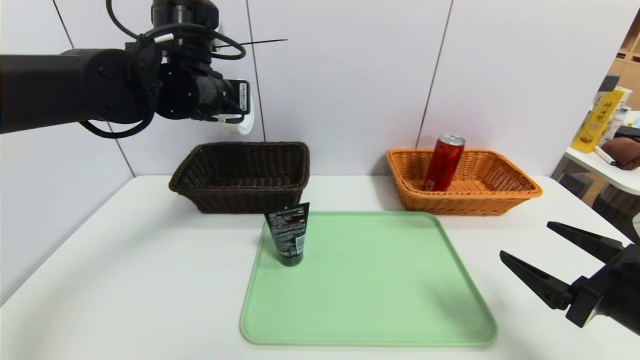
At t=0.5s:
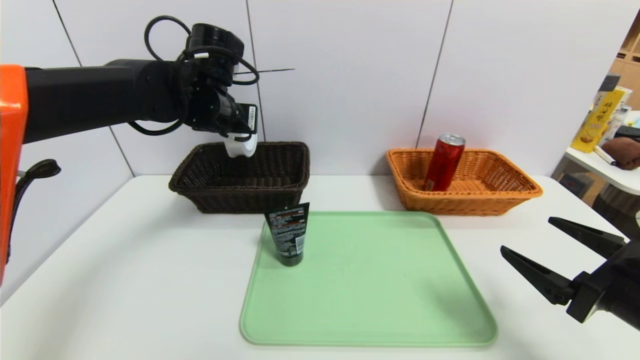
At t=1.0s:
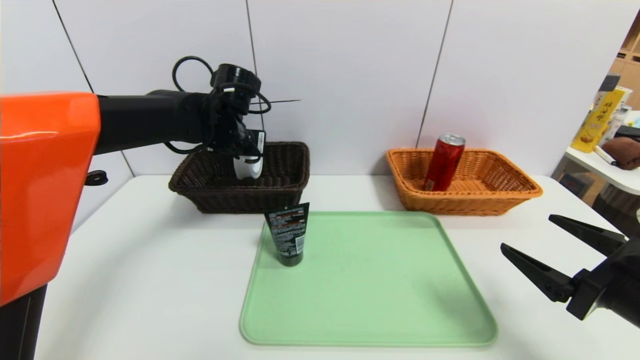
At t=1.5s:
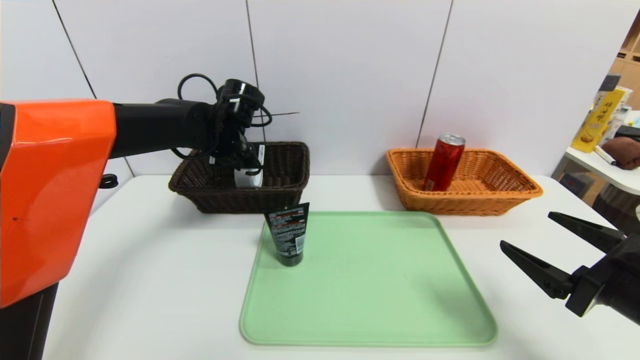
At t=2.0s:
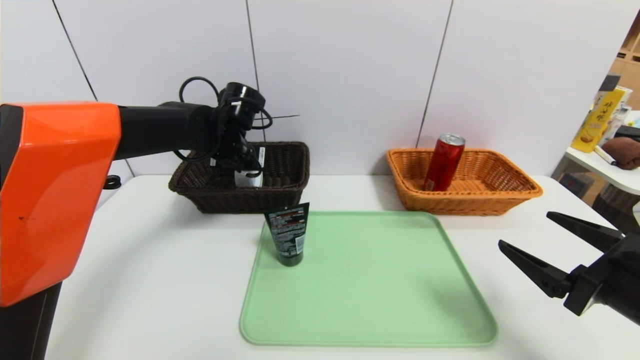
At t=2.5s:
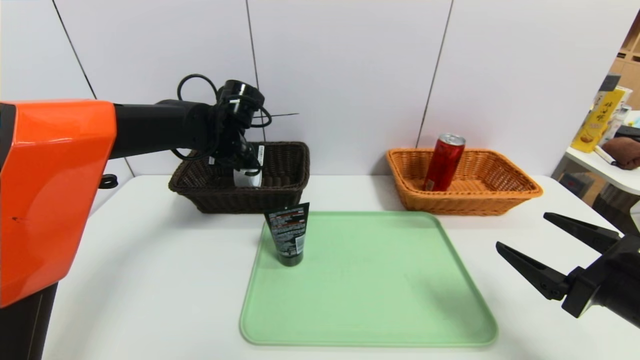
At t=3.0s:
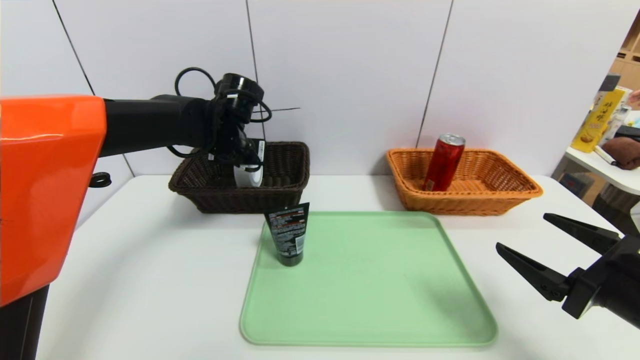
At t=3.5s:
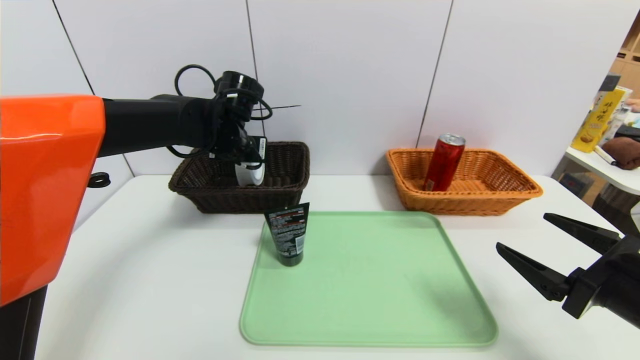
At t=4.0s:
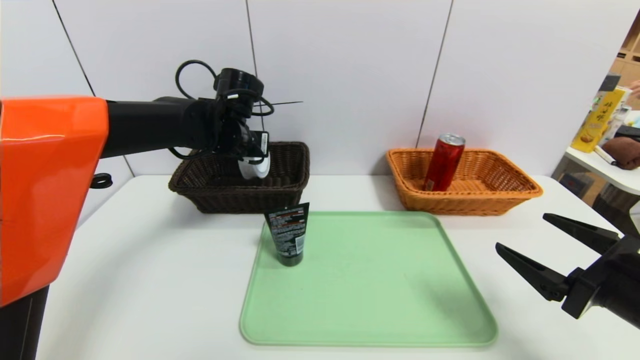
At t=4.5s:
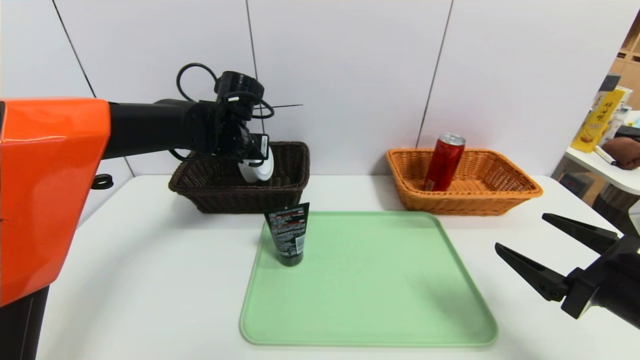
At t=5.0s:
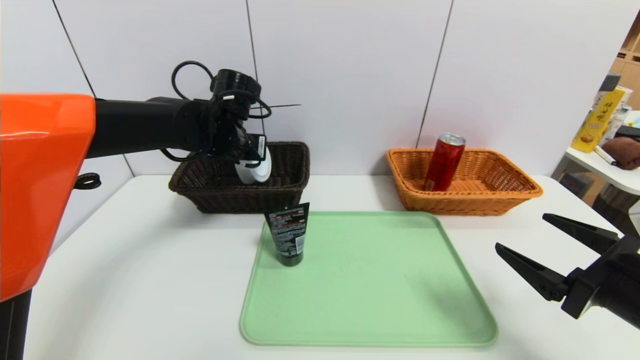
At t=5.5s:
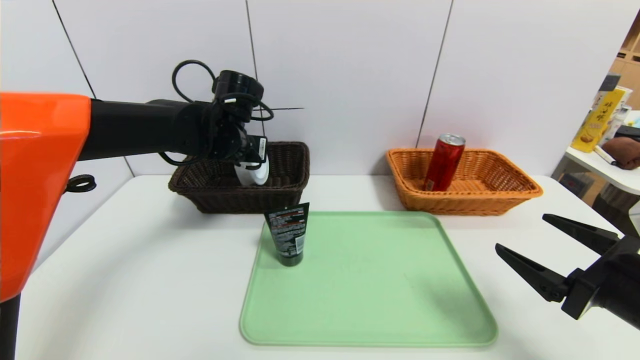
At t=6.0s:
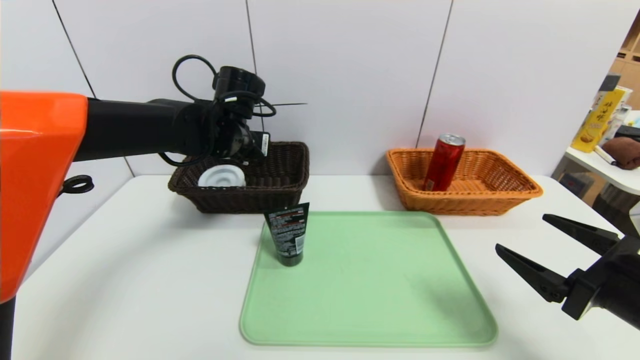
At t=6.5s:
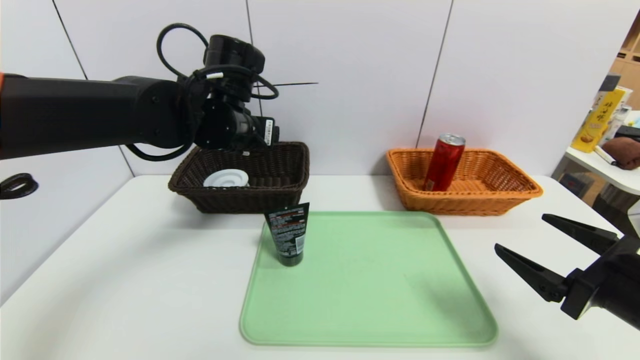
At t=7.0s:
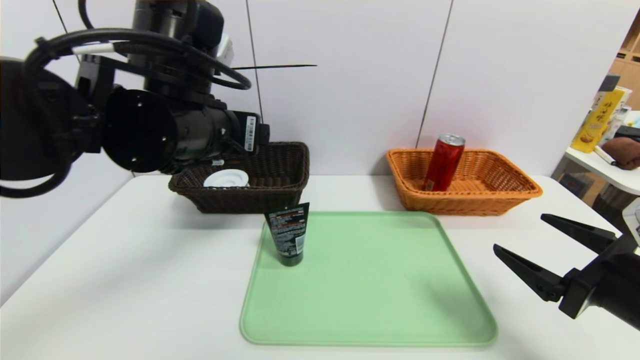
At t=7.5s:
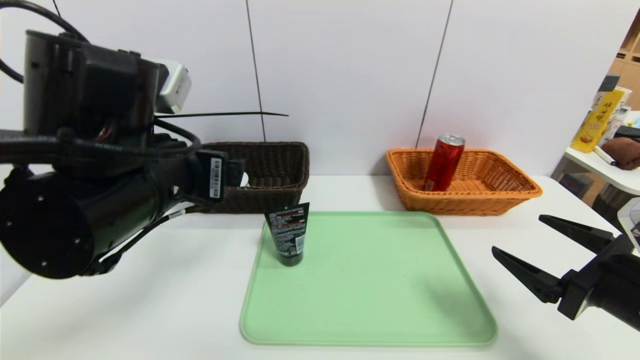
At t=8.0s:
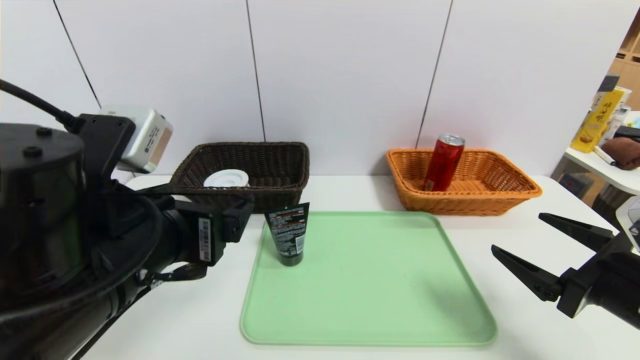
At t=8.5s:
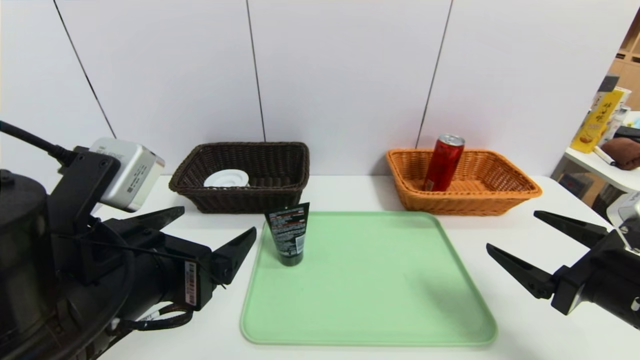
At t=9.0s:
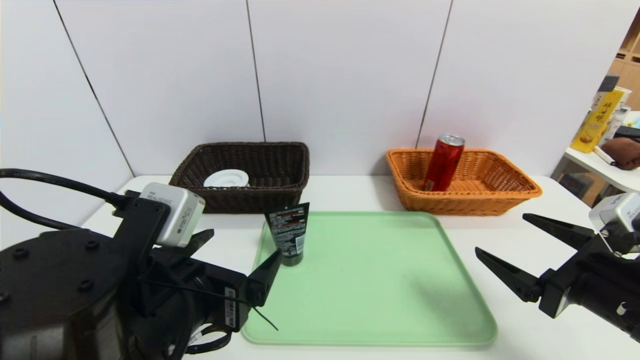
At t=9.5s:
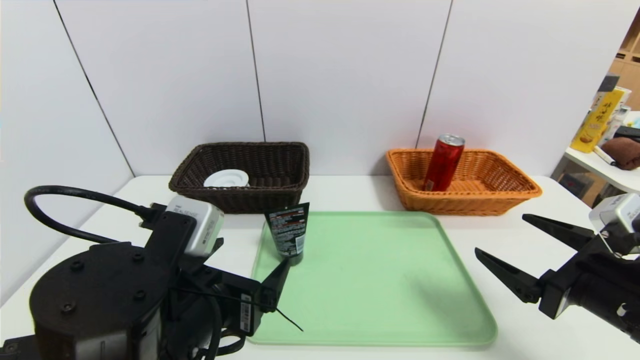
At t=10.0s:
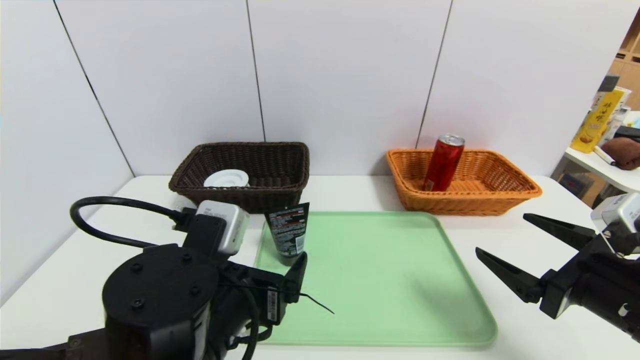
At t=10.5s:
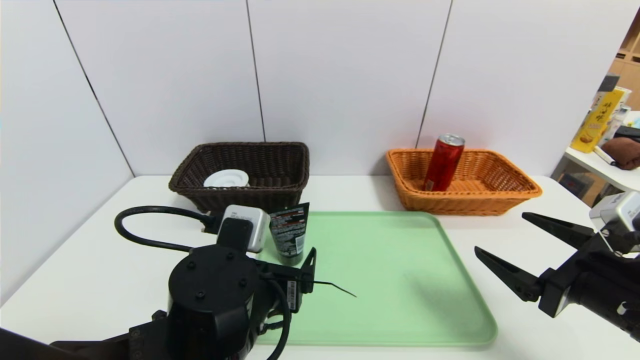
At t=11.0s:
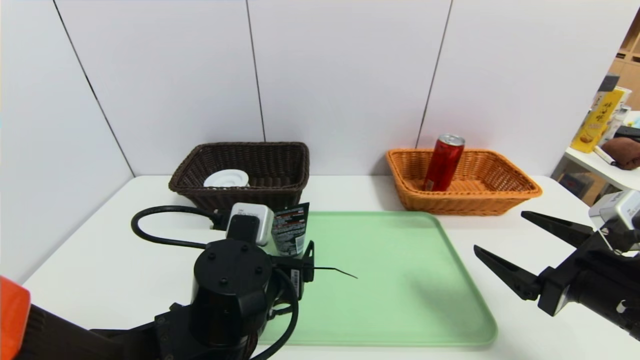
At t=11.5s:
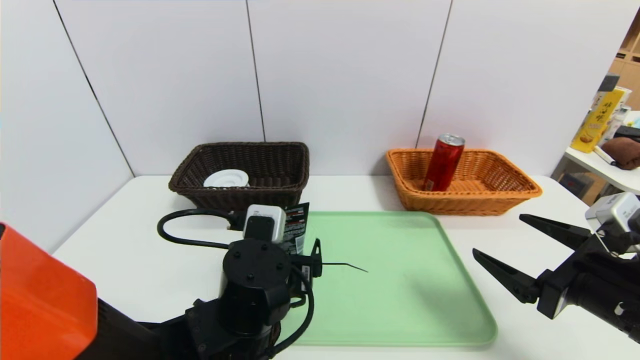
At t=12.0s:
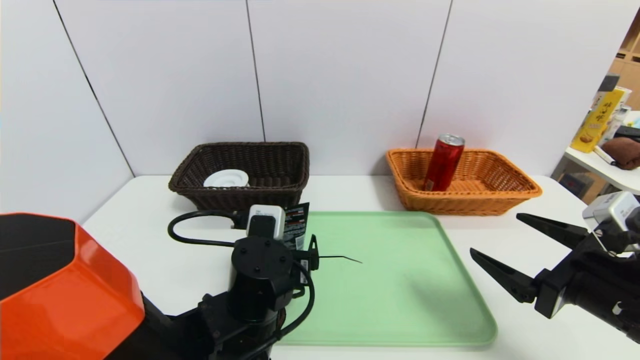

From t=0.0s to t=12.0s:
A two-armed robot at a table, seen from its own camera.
Task of the whole recording: place the food in the right basket with the right gripper, and place the non food items in the left basket with the left gripper.
Step, from t=0.0s to t=6.0s: Grasp the tape and put it in the left basket.
From t=0.0s to t=2.0s: The left gripper moves downward and forward, roughly 10 cm.
From t=2.0s to t=4.0s: The grippers stay close to where they were, moving slightly.
From t=4.0s to t=6.0s: The left gripper opens up.
From t=6.0s to t=8.0s: The left gripper shifts approximately 25 cm backward.
From t=8.0s to t=10.0s: The left gripper is displaced downward by some 10 cm.
From t=10.0s to t=12.0s: The left gripper is displaced forward and downward by about 10 cm.

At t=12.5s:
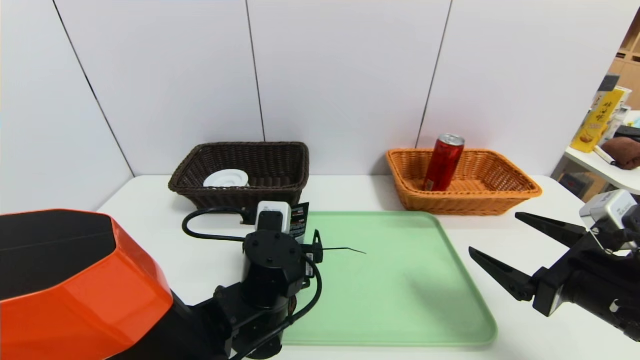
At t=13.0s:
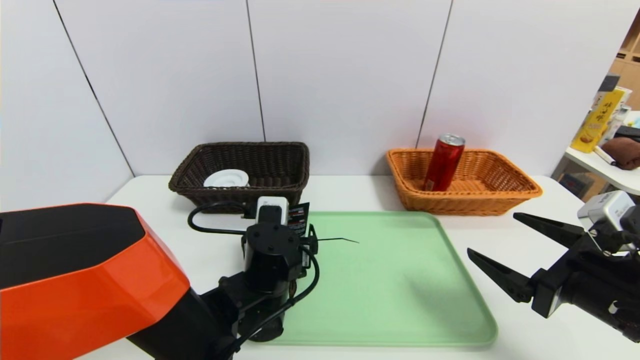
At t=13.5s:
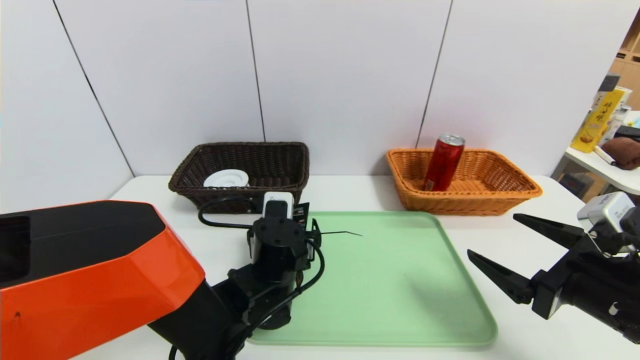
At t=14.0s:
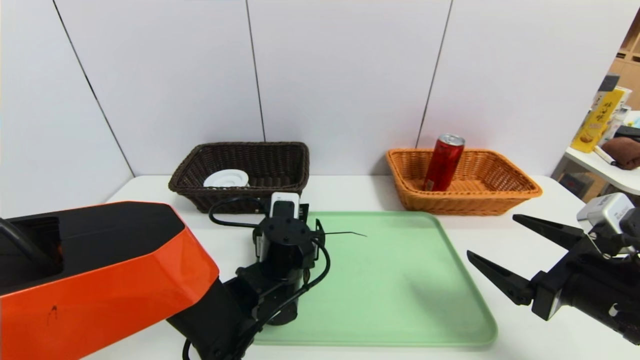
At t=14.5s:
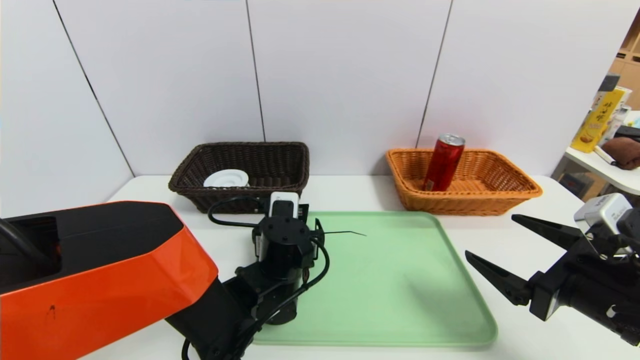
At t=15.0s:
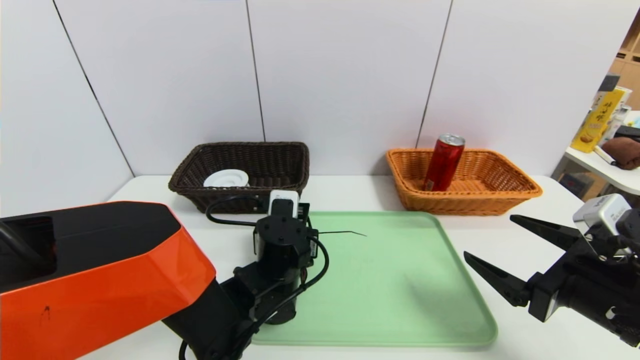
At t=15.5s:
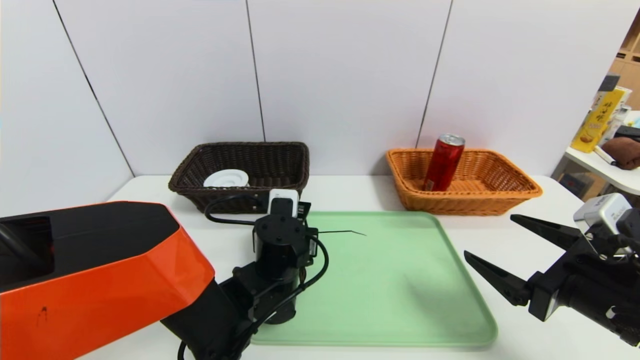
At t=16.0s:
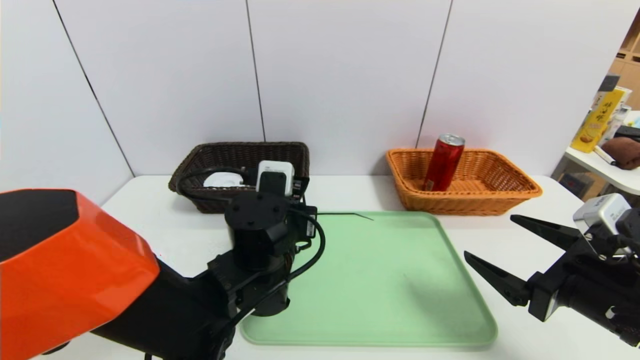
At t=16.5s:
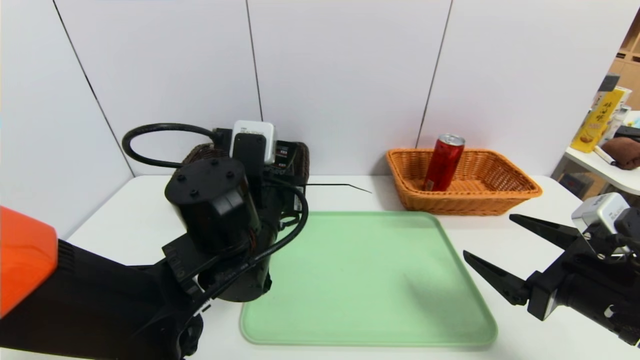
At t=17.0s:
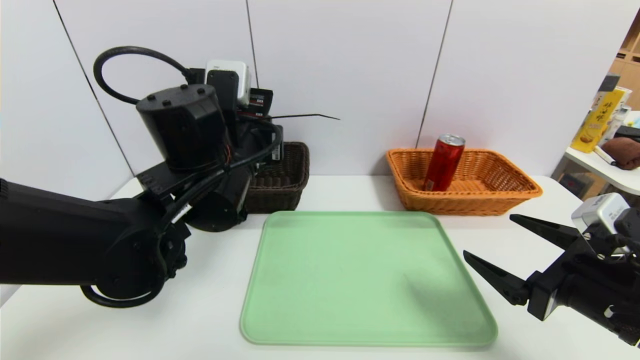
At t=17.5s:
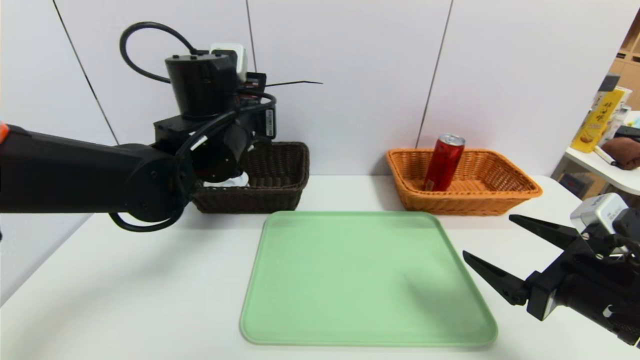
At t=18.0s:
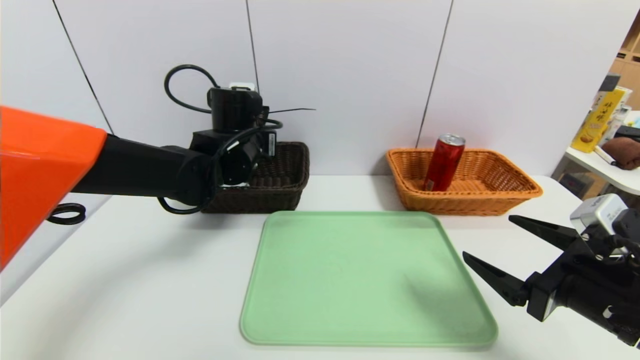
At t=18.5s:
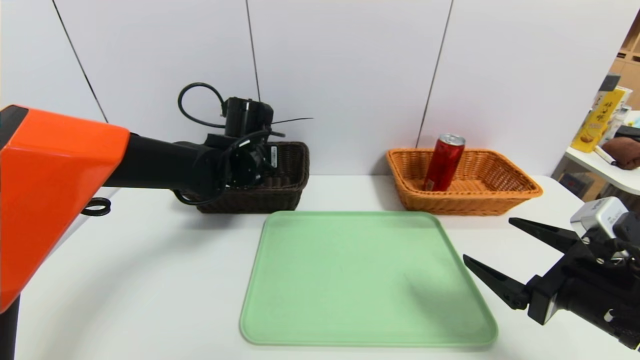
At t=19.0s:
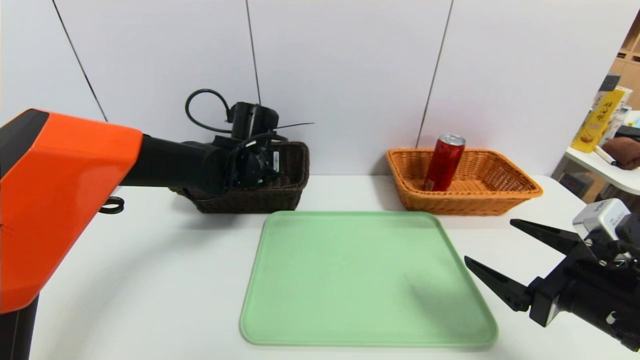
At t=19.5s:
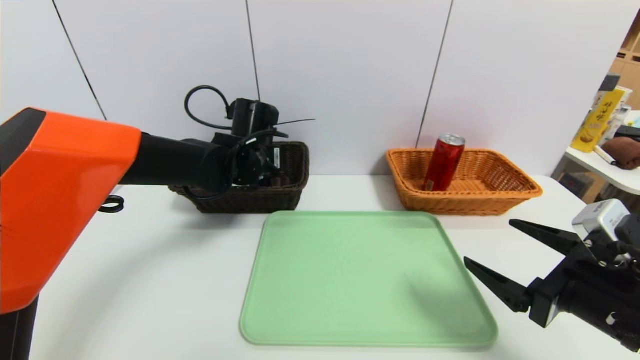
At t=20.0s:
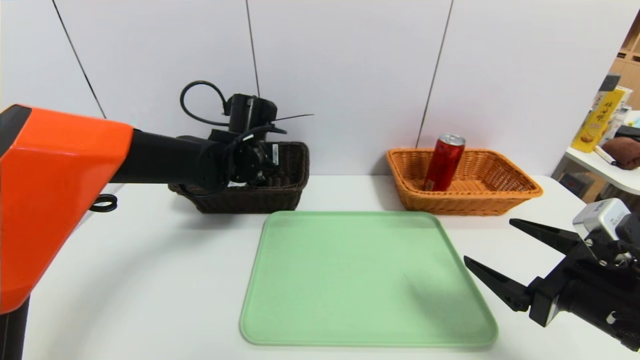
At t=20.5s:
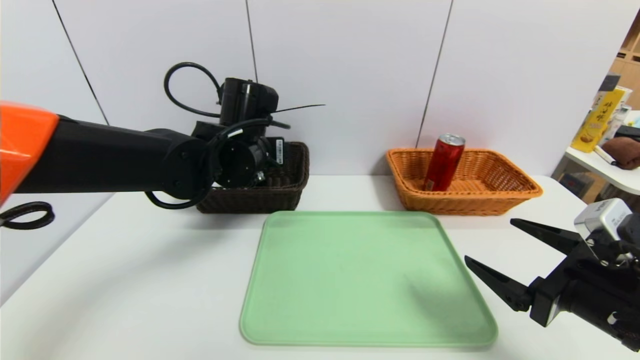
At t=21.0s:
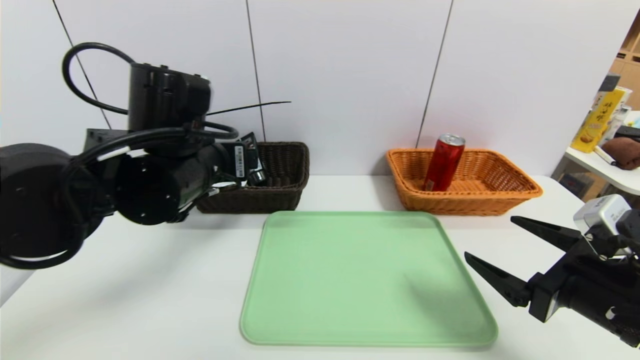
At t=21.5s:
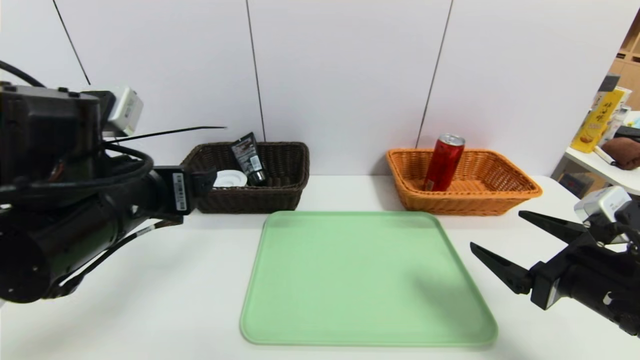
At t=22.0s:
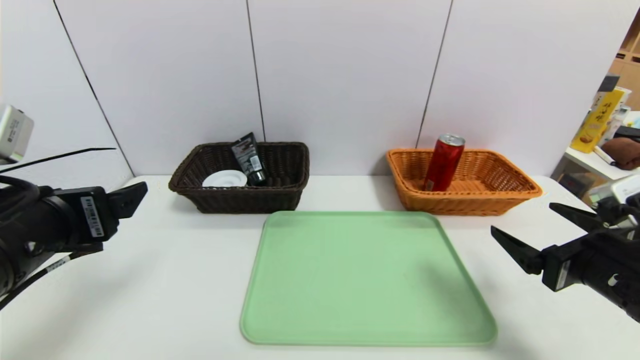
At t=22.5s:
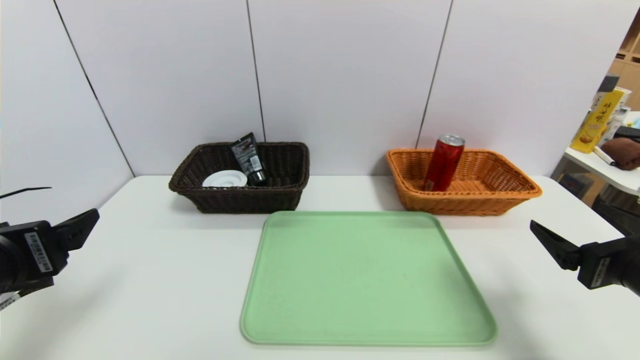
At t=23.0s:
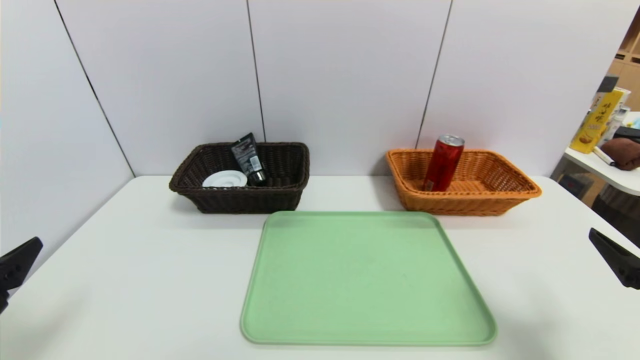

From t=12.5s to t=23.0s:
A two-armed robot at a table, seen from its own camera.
Task of the whole recording: place the food in the right basket with the right gripper, and place the non food items in the left basket with the left gripper.
Step, from t=12.5s to t=19.5s: Grasp the soft cleanser and put it in the left basket.
From t=12.5s to t=14.5s: The grippers make only small movements.
From t=14.5s to t=16.5s: The left gripper shifts approximately 10 cm upward, and closes.
From t=16.5s to t=19.0s: The left gripper heads forward, covering about 15 cm.
From t=19.0s to t=21.0s: The left gripper is displaced backward and upward by approximately 15 cm, and opens its fingers.
From t=21.0s to t=23.0s: The left gripper heads backward and to the left, covering roughly 25 cm; the right gripper heads to the right and backward, covering about 10 cm.
